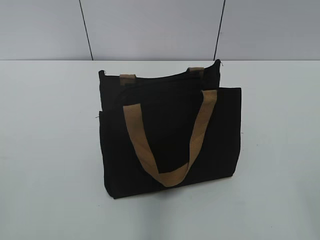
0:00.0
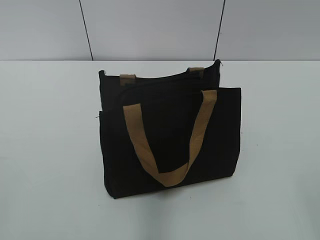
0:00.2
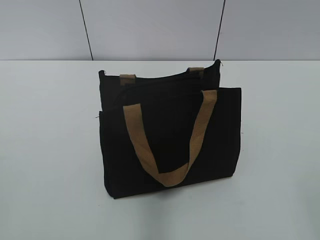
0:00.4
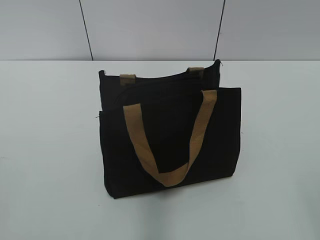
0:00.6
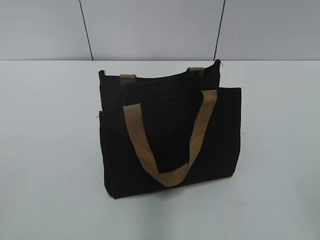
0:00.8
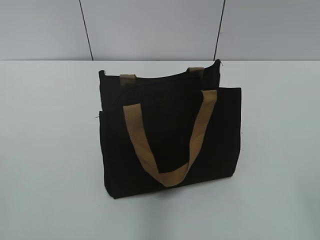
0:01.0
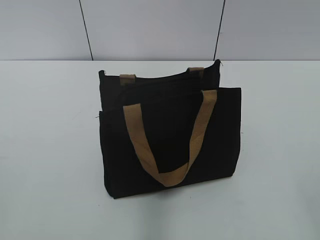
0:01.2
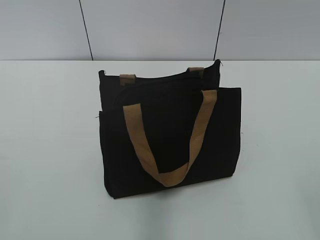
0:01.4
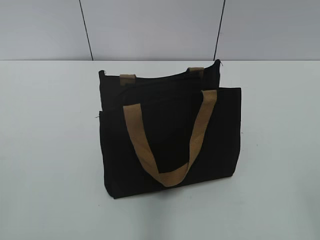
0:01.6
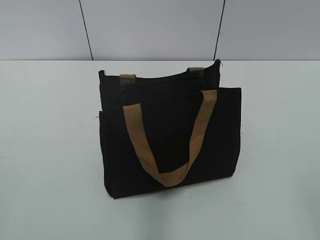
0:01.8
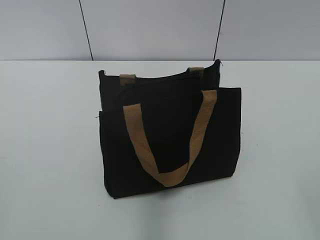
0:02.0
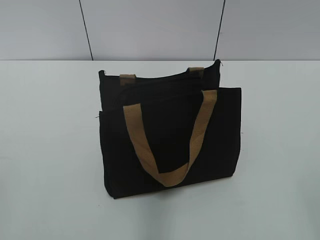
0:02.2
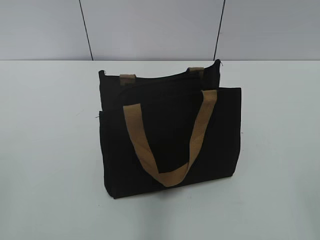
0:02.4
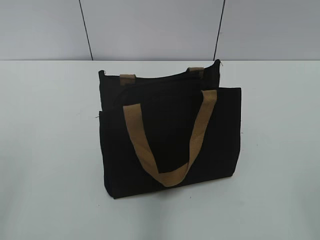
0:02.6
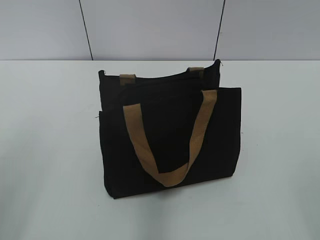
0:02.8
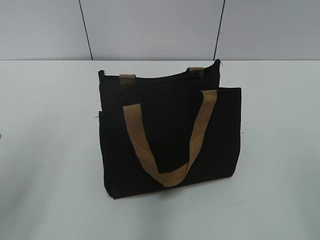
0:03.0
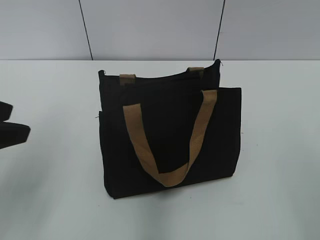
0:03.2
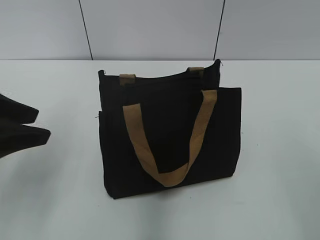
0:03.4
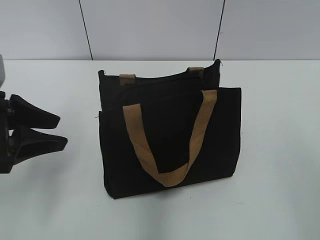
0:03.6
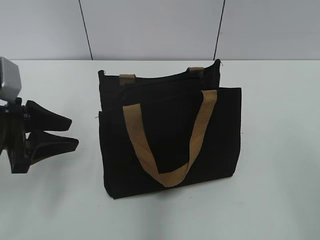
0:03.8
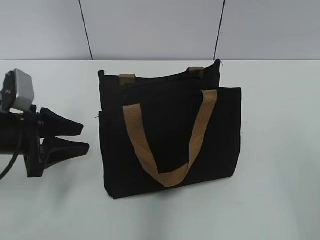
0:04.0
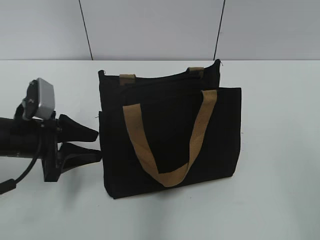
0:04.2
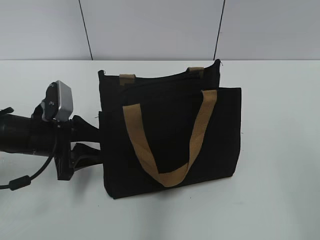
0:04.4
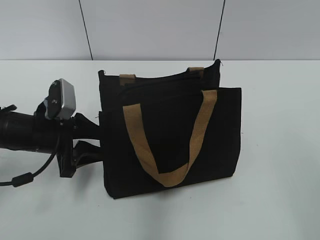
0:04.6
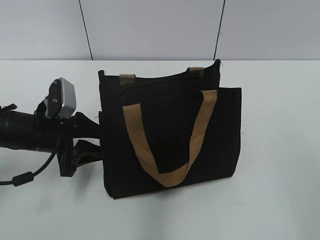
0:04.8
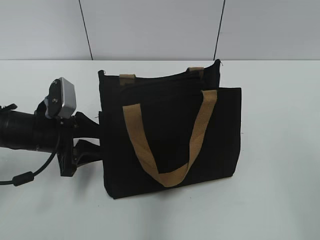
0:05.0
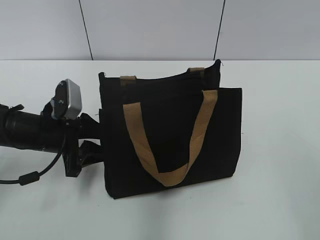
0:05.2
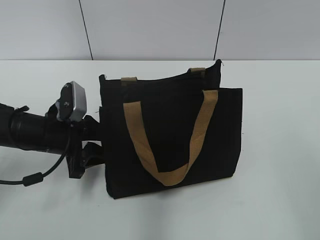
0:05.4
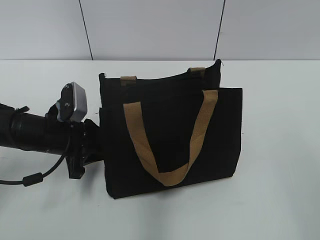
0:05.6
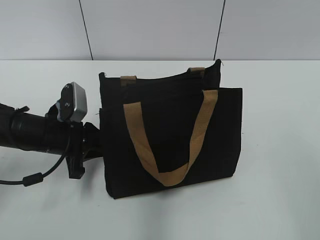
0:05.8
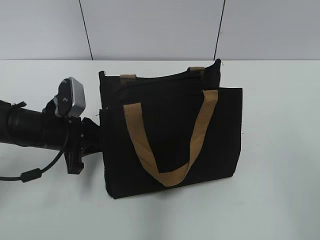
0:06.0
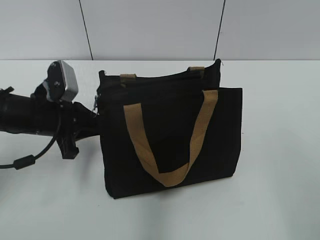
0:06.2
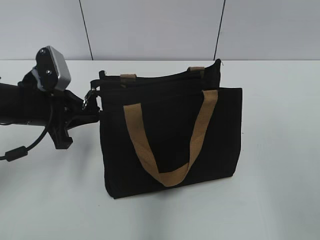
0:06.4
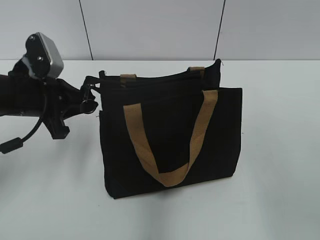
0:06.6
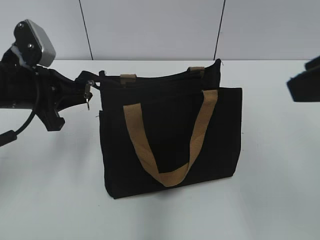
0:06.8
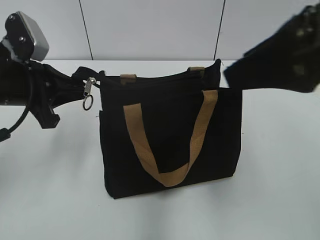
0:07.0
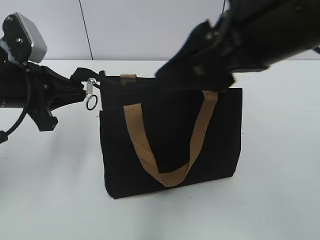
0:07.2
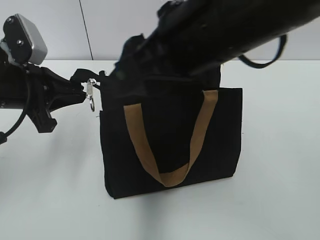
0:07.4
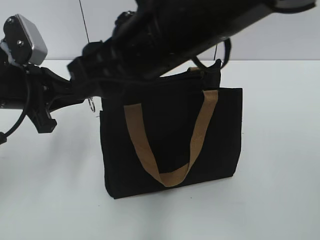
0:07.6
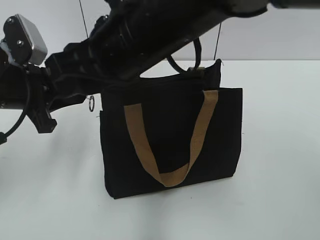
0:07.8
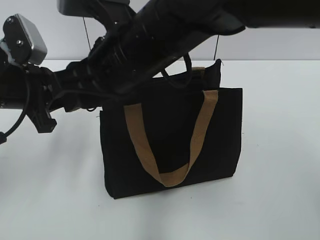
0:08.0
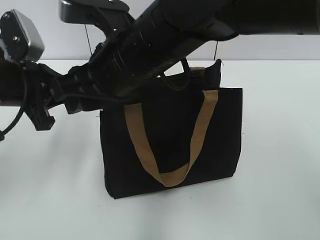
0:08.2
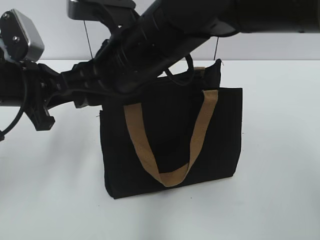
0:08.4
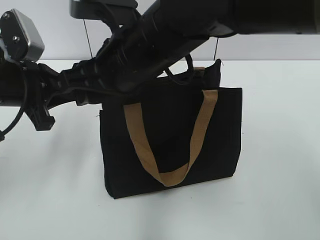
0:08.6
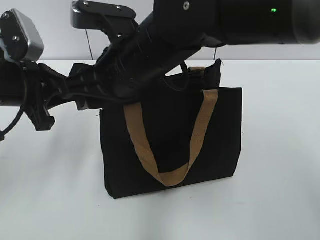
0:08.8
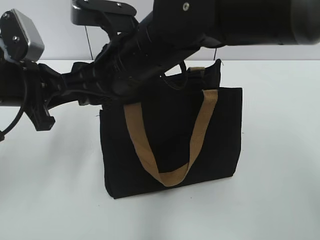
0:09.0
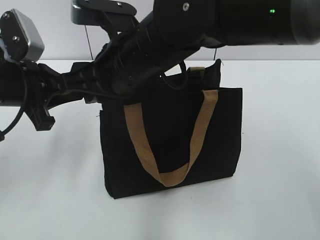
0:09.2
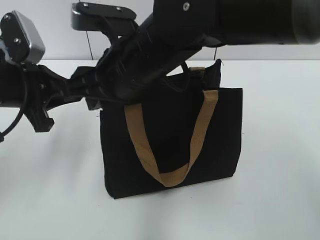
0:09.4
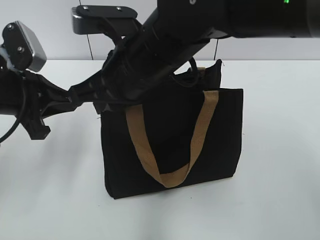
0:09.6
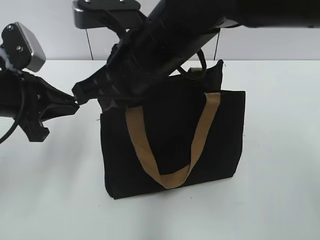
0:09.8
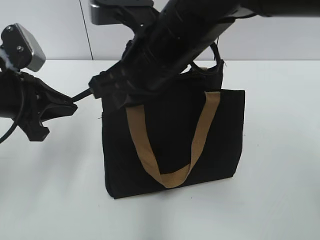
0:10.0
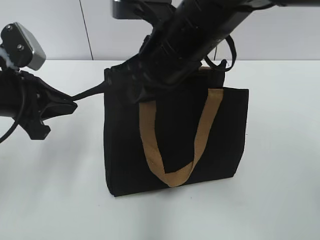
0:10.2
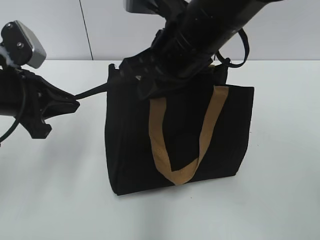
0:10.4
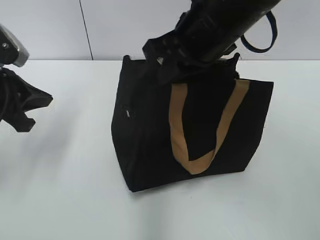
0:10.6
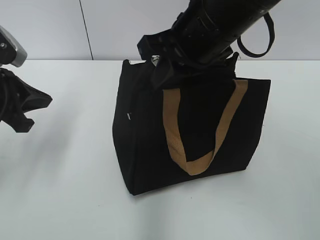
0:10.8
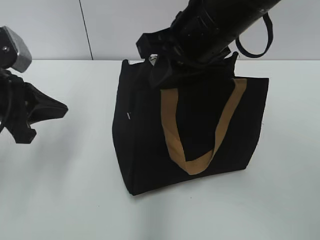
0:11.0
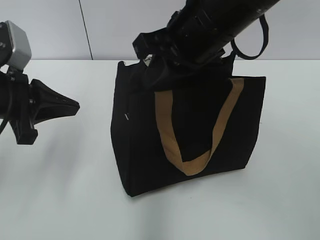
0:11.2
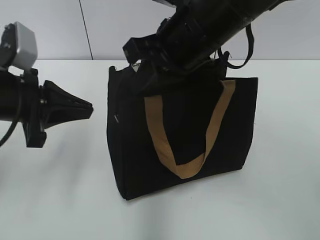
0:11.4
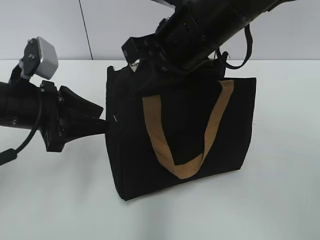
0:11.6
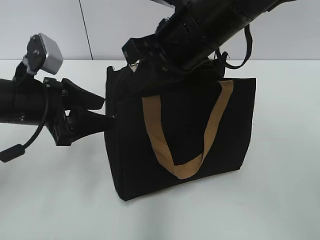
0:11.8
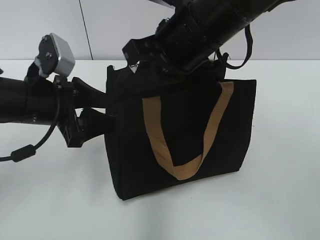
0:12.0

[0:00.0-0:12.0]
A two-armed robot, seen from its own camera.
0:01.6 to 0:03.0: The left gripper travels forward by approximately 10 cm, and opens up.
0:03.0 to 0:04.4: The left gripper heads downward and forward, covering approximately 25 cm.
0:04.4 to 0:06.0: The left gripper closes up.
0:06.0 to 0:07.6: The right gripper is displaced to the left and forward by some 30 cm. Meanwhile the left gripper is displaced upward by roughly 10 cm.
0:07.6 to 0:09.0: The right gripper travels downward by approximately 5 cm.
0:09.0 to 0:10.4: The right gripper travels to the right by about 5 cm, and closes up.
0:10.4 to 0:12.0: The left gripper changes place by some 5 cm, and opens up.

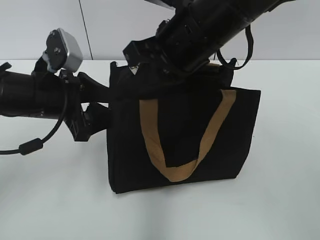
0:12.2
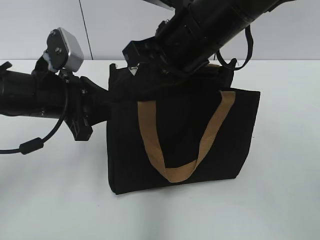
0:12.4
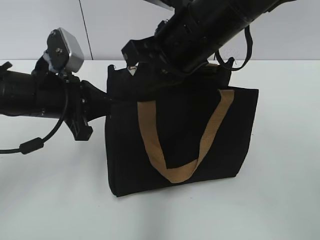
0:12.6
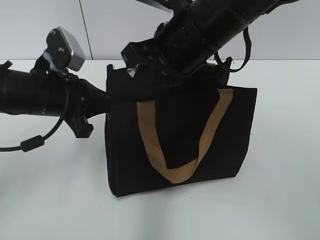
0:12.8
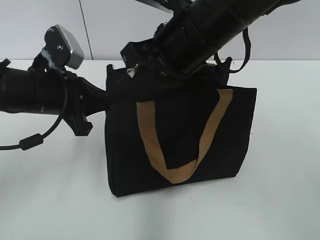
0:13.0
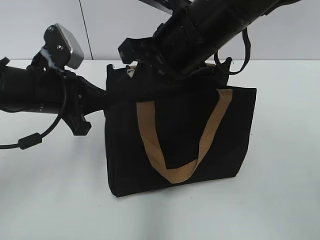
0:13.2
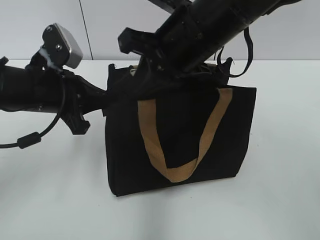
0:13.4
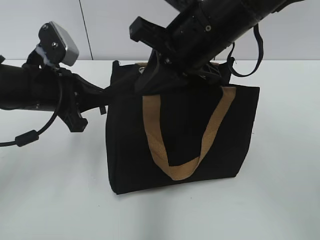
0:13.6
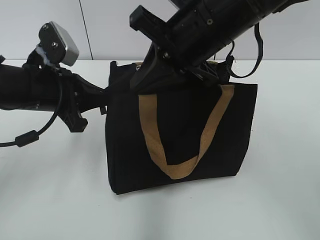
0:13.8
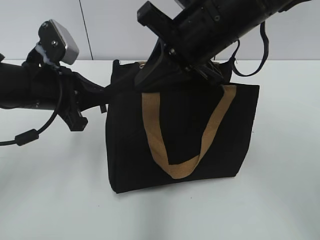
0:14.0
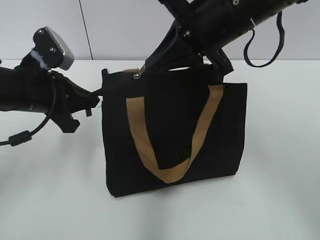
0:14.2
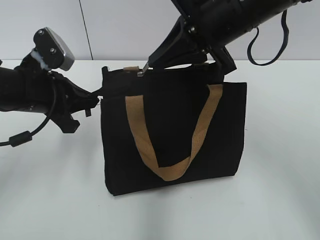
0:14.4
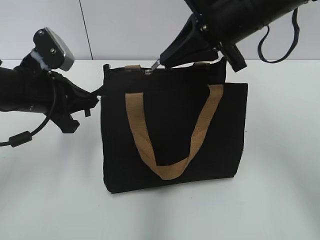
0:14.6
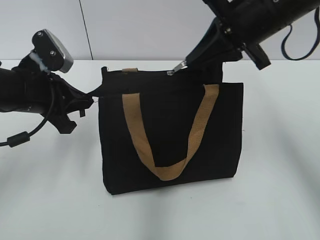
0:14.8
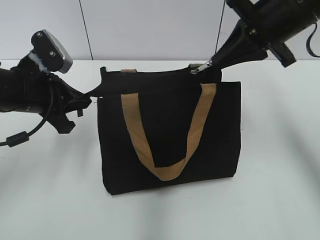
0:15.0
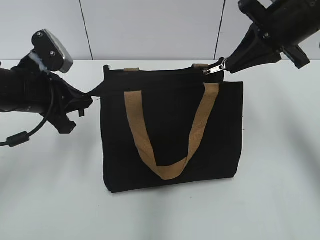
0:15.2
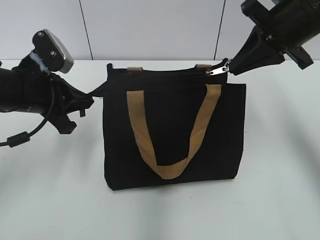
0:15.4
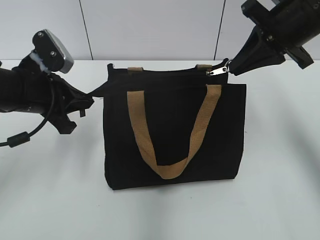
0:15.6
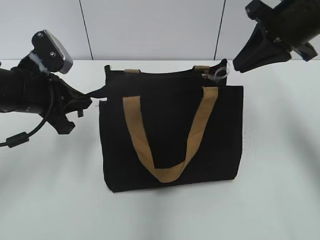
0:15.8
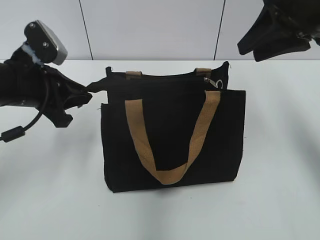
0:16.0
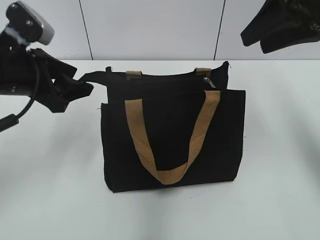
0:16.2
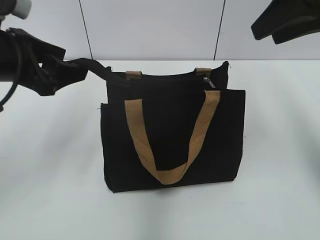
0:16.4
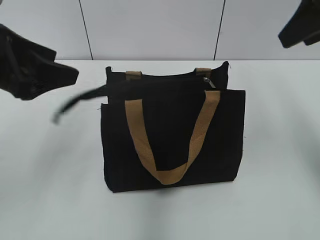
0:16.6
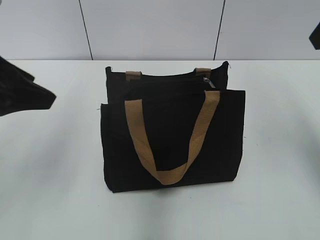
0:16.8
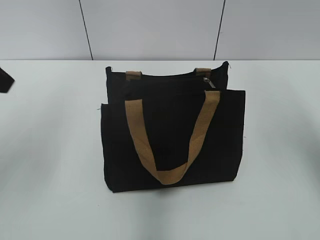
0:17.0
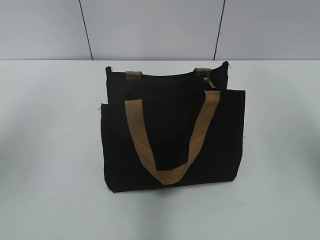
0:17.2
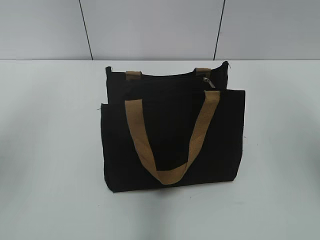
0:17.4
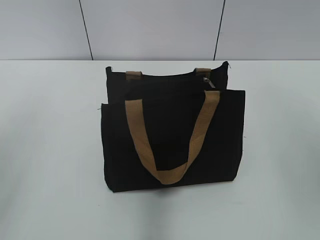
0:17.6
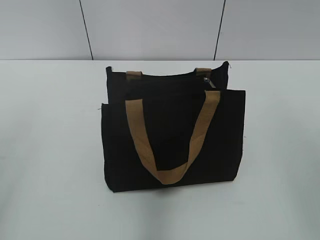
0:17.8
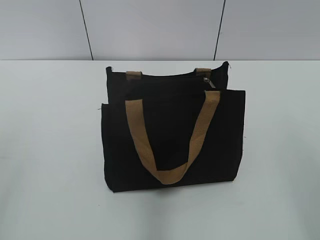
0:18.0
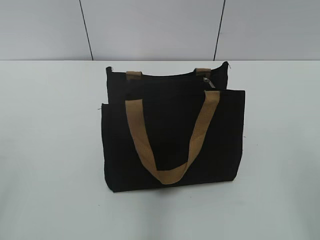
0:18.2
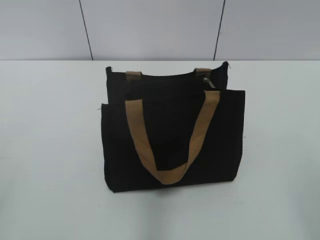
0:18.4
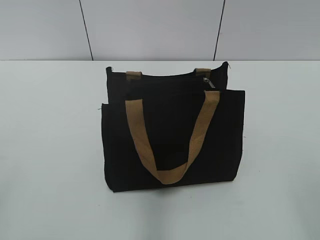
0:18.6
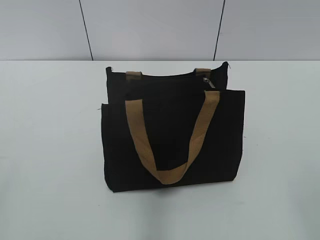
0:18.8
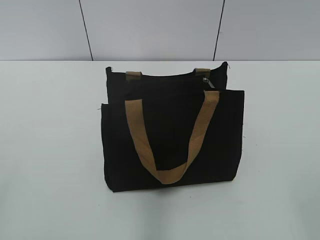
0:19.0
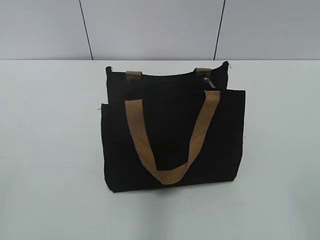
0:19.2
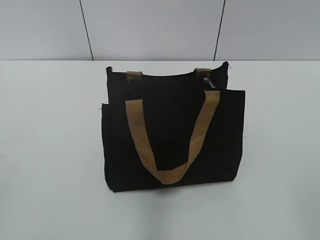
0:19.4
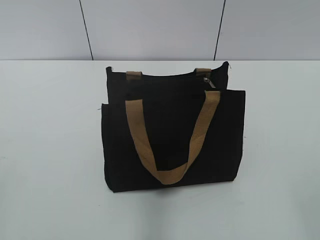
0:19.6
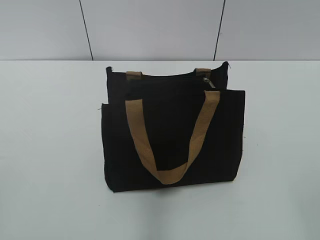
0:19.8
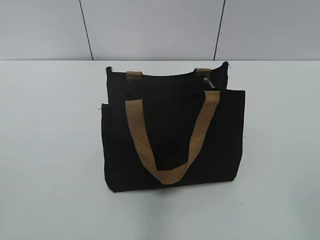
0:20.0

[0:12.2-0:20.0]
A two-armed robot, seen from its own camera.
Step, 0:12.2 to 0:15.8: Zip up the bag with your right hand.
Step, 0:16.0 to 0:16.4: Grab the zipper with your left hand.
0:12.2 to 0:13.8: The left gripper closes its fingers.
0:13.8 to 0:15.4: The right gripper shifts approximately 15 cm to the right.
0:15.4 to 0:16.8: The grippers both shift upward and backward by about 10 cm. The left gripper opens its fingers. The right gripper opens.
0:16.8 to 0:18.4: The right gripper heads backward, covering some 25 cm; the left gripper heads backward and to the left, covering about 20 cm.

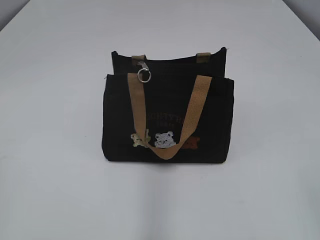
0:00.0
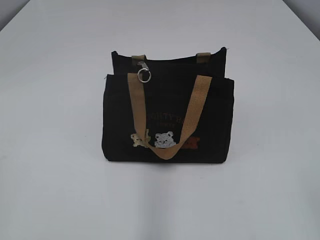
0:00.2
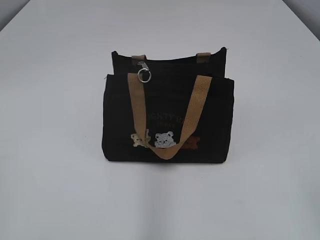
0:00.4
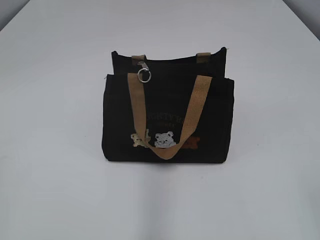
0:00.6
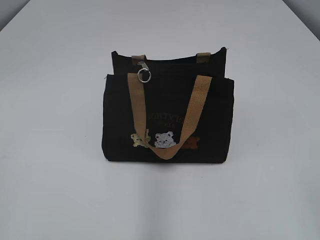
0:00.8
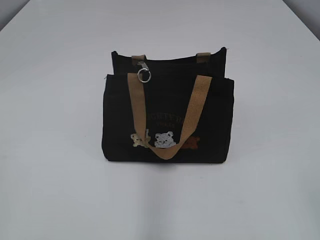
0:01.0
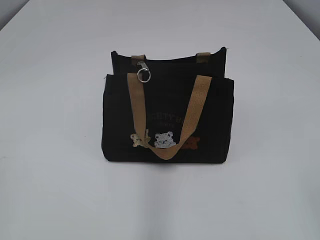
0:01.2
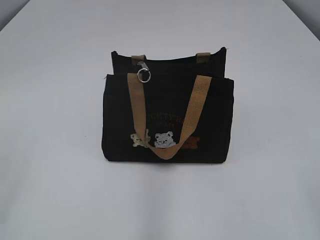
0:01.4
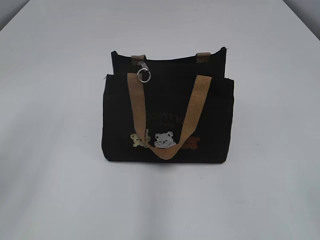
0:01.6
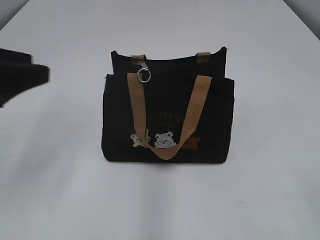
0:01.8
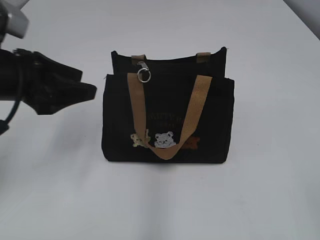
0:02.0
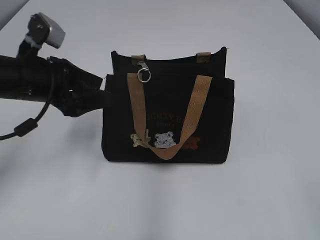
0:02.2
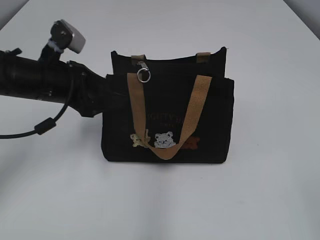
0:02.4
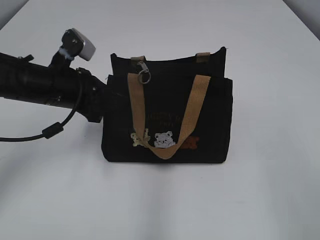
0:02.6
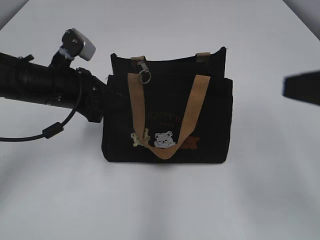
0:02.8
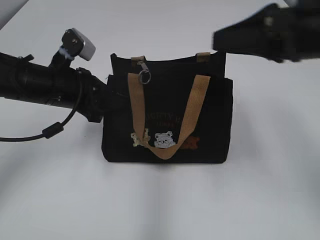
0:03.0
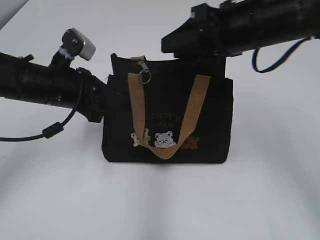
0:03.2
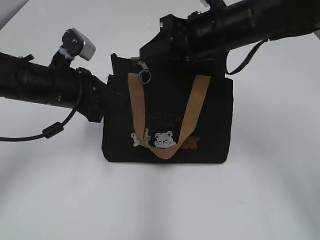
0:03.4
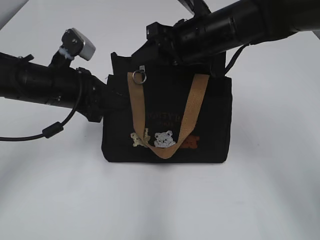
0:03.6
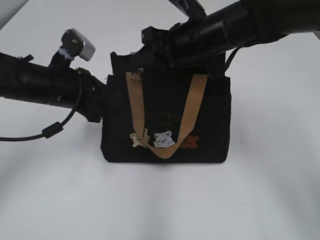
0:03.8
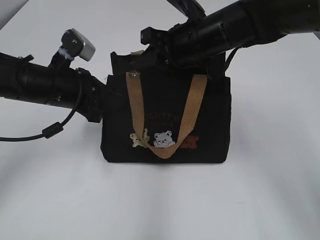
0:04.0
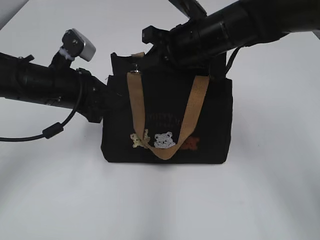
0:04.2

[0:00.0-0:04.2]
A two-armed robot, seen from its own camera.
0:01.4 to 0:02.8: The left gripper is displaced forward, to the right and downward by approximately 35 cm, and closes up; the right gripper travels forward by approximately 10 cm.
0:02.8 to 0:04.2: The right gripper is displaced forward and to the left by some 30 cm, and closes up.
